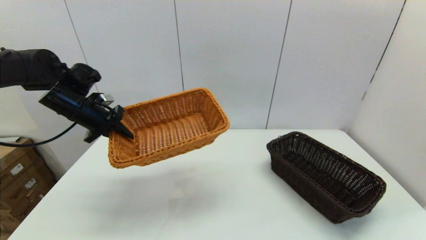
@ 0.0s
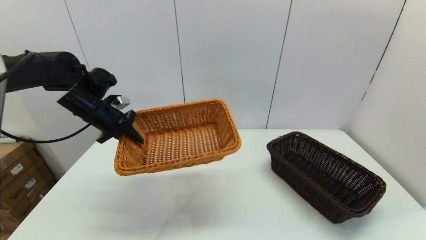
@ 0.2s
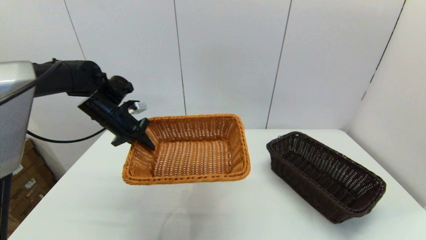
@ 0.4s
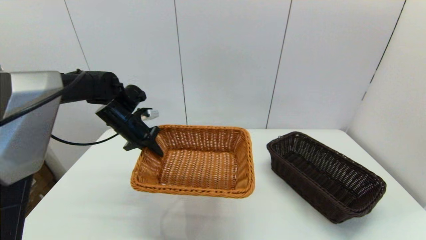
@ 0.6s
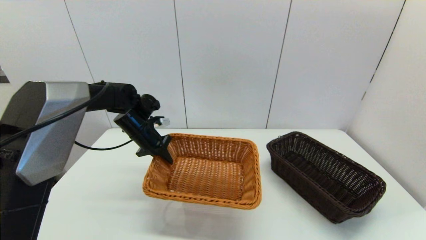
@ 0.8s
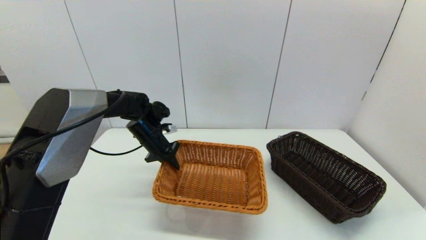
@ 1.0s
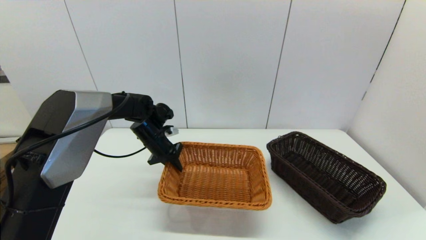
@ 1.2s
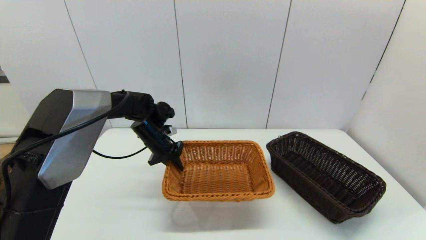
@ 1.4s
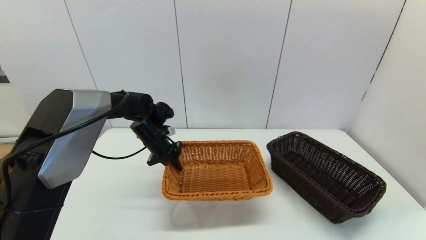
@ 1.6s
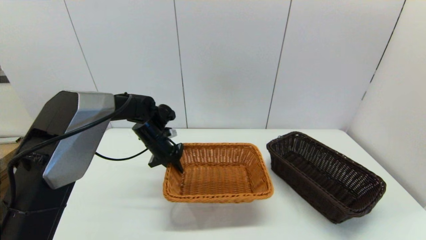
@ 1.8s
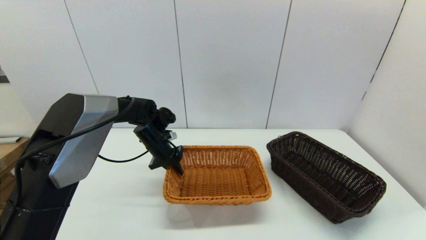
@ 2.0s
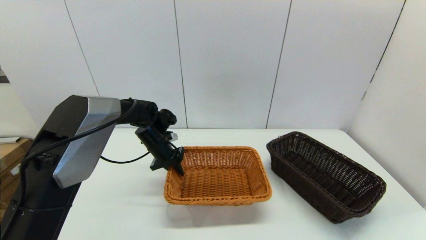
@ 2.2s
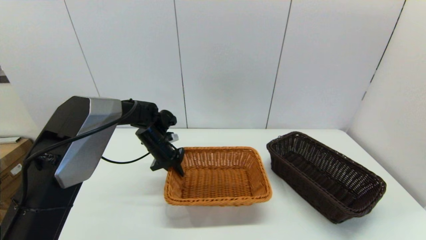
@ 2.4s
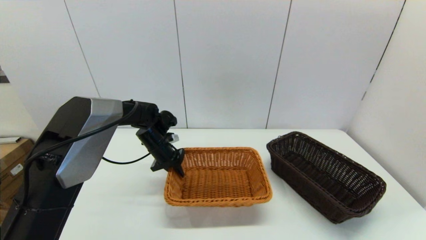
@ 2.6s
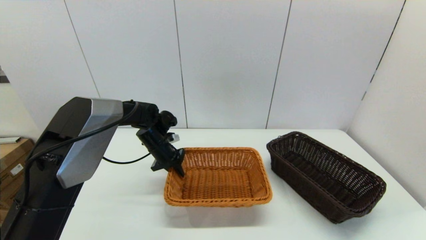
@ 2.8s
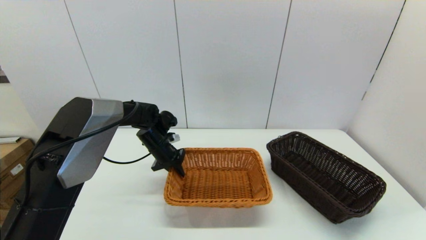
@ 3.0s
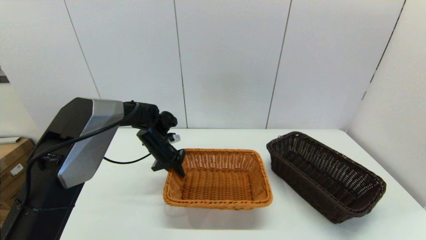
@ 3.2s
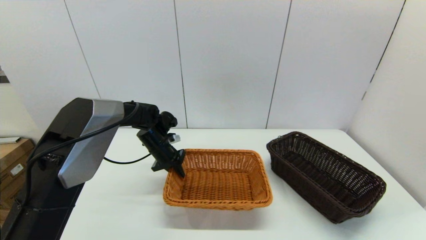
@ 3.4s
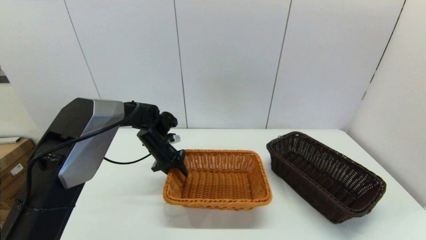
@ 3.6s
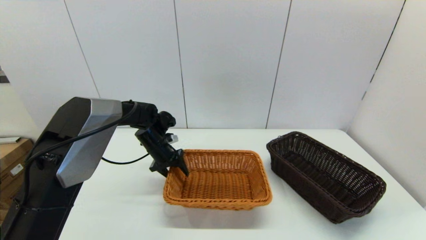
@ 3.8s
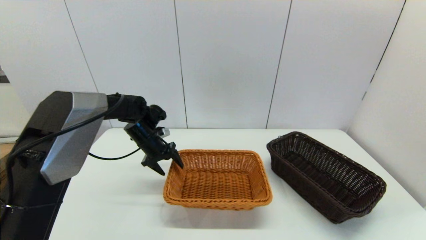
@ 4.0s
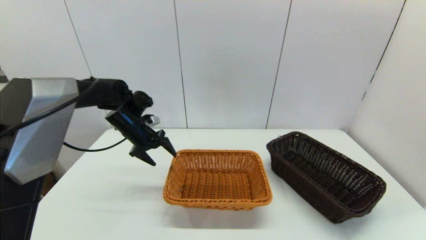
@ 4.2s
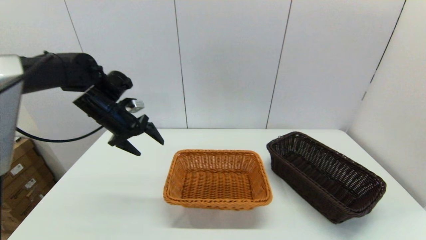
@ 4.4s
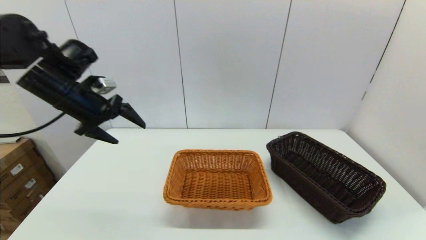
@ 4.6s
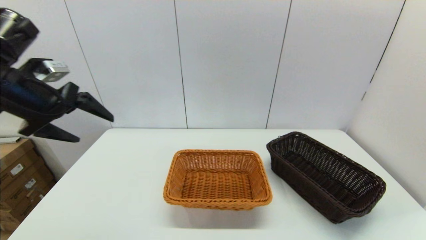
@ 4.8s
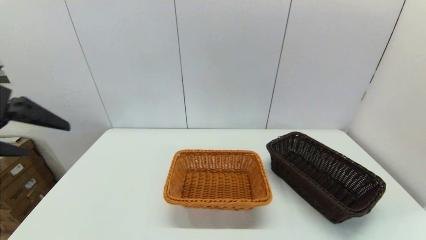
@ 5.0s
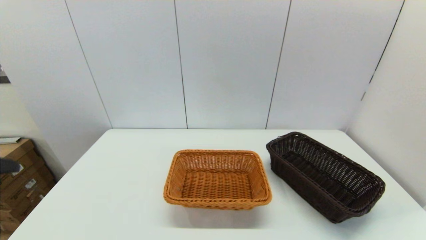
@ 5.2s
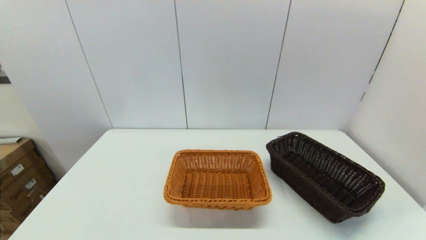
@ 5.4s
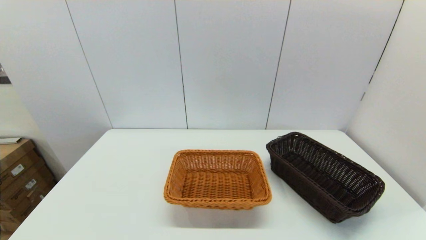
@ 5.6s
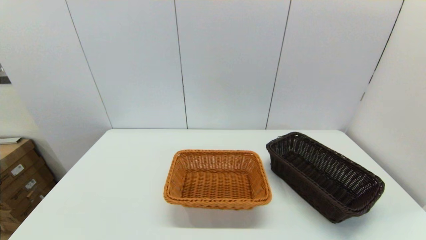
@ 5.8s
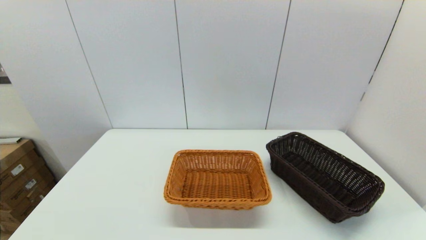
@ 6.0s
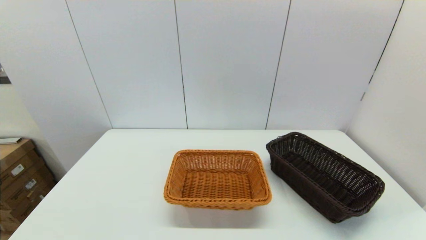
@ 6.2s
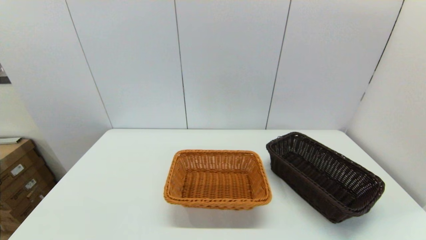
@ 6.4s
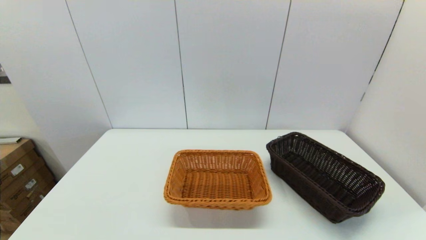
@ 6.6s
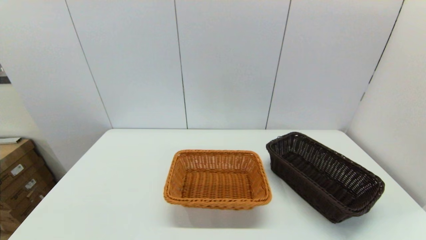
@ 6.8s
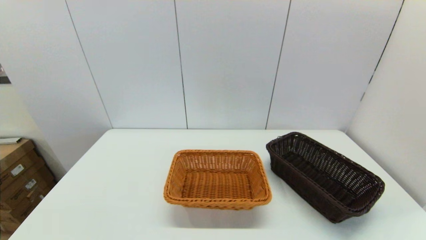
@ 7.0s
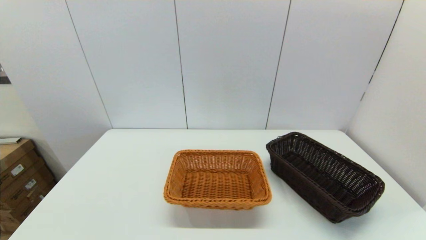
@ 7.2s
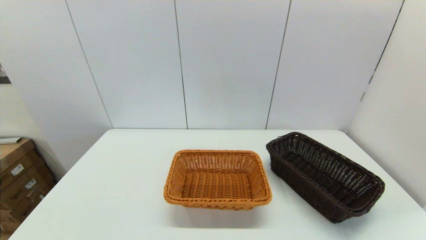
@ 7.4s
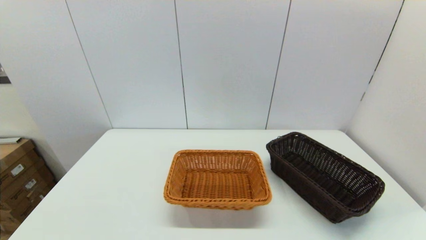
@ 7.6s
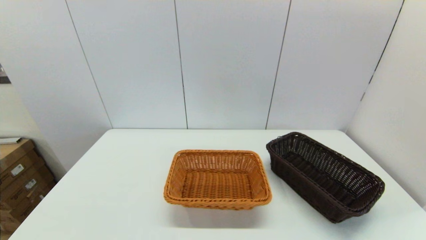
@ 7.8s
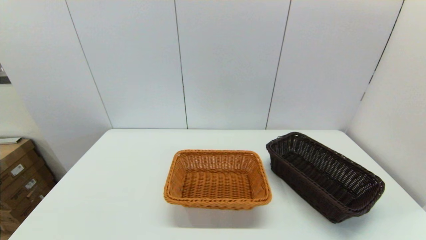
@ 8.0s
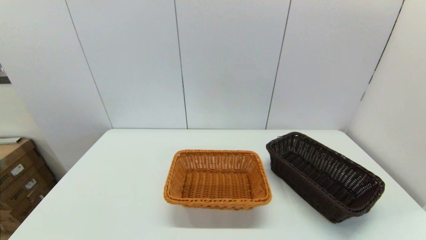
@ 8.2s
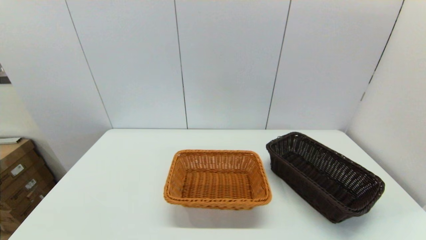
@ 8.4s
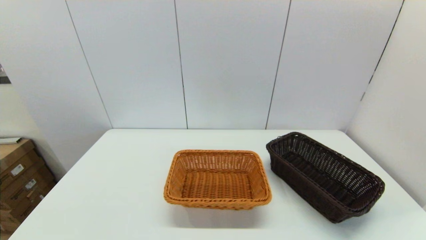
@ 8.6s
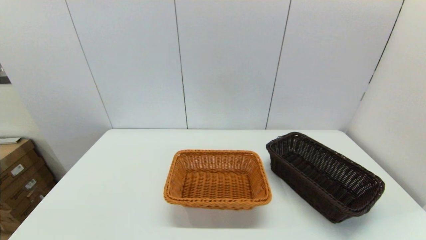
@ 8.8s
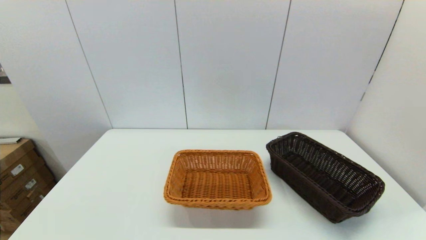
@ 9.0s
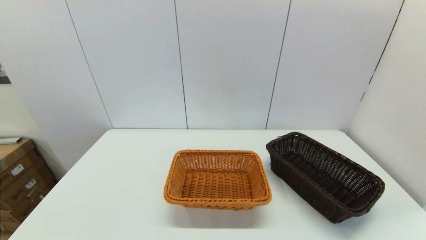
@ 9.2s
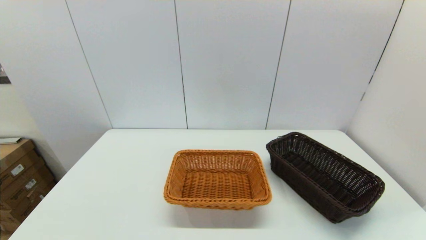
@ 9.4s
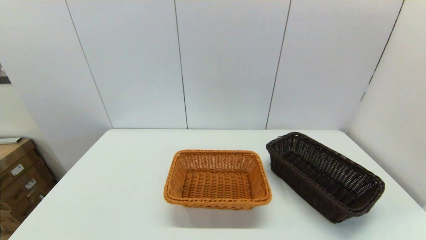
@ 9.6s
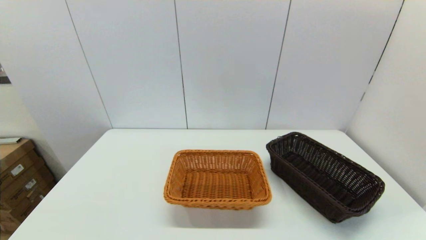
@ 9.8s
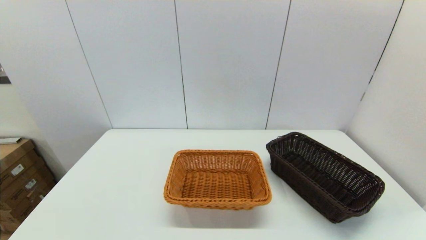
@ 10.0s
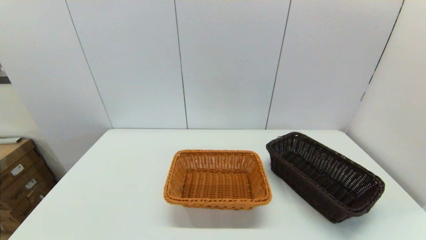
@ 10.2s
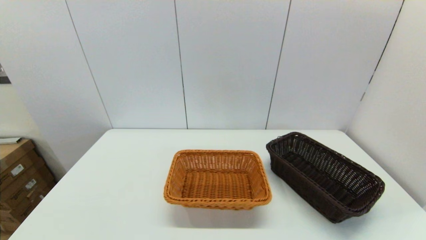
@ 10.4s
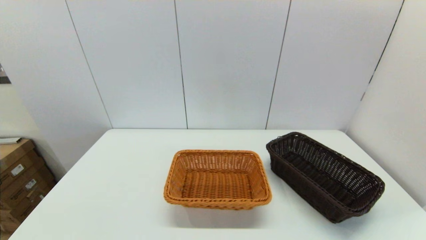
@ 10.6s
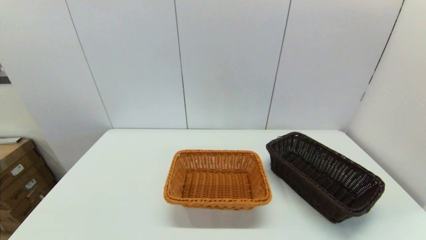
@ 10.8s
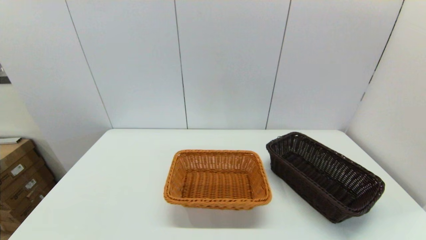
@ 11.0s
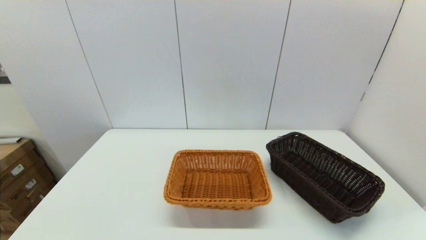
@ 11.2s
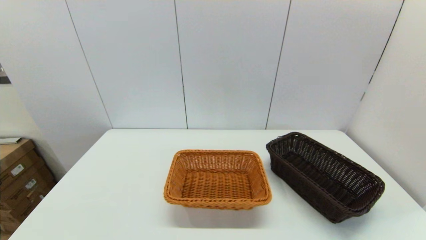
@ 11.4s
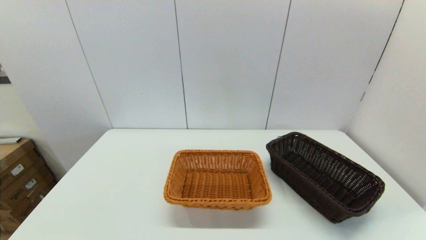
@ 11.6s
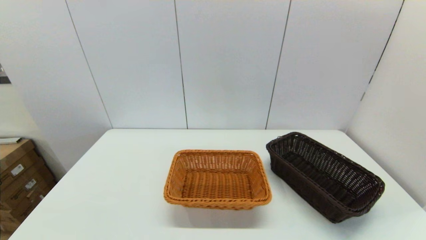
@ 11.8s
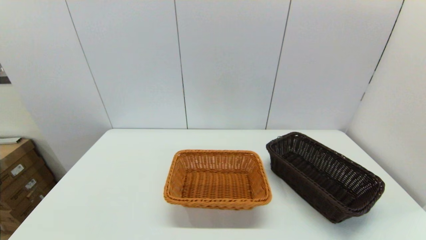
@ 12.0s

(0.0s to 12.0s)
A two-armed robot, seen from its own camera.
Task of the whole recording: stack a basket on top of another basket.
Step, 0.0s - 4.4s: Place the light basket on the middle of the table with the left gripper.
0.0s - 1.6s: The left gripper is displaced to the right and downward by some 20 cm.
1.6s - 3.0s: There are only small adjustments of the grippers.
3.0s - 4.4s: The left gripper goes about 15 cm upward and to the left, and opens up.
4.4s - 6.0s: The left gripper goes about 50 cm backward.
7.6s - 12.0s: Neither gripper changes place.

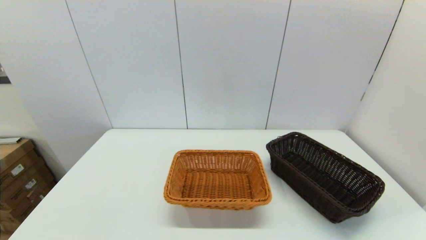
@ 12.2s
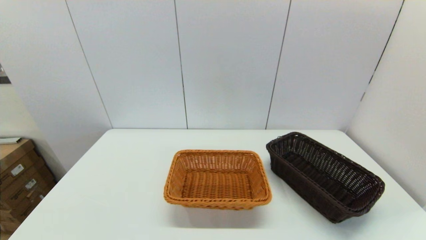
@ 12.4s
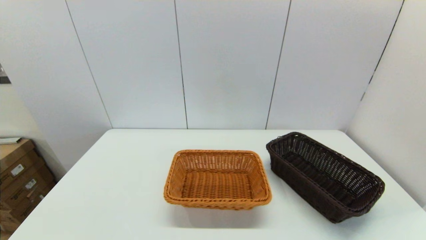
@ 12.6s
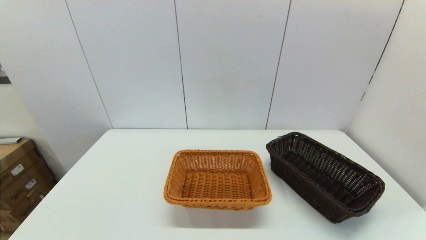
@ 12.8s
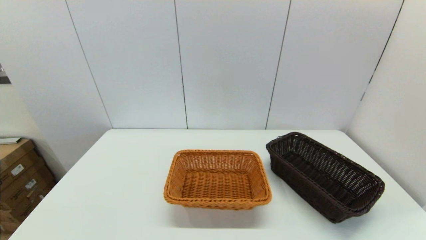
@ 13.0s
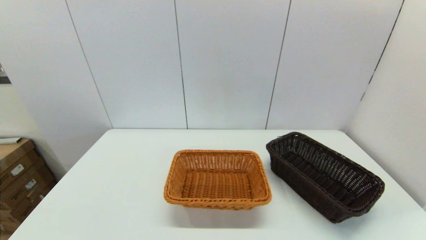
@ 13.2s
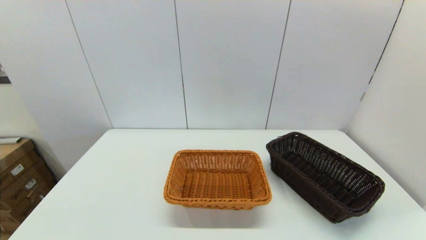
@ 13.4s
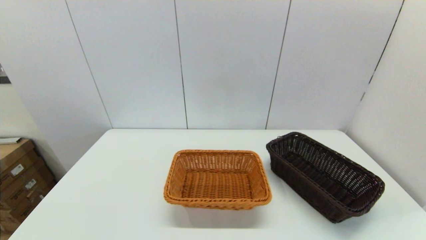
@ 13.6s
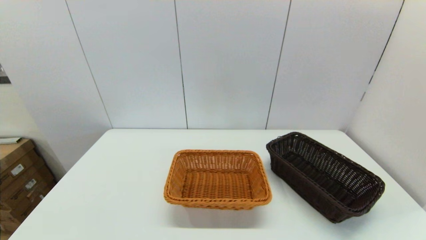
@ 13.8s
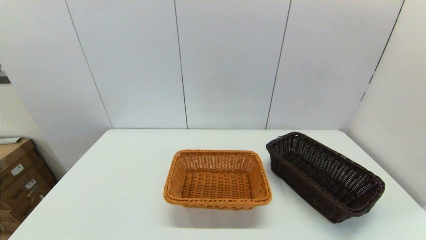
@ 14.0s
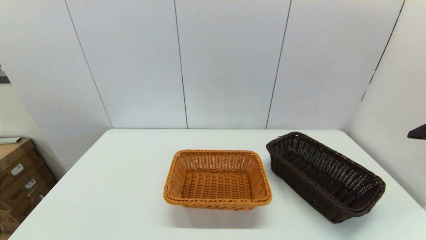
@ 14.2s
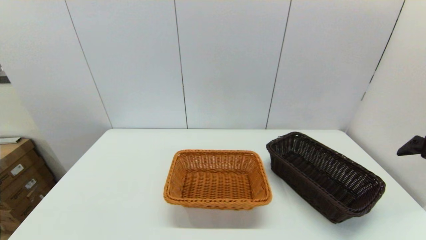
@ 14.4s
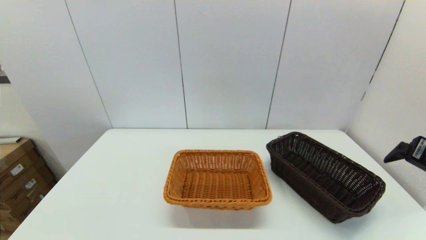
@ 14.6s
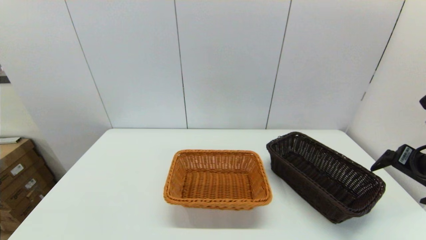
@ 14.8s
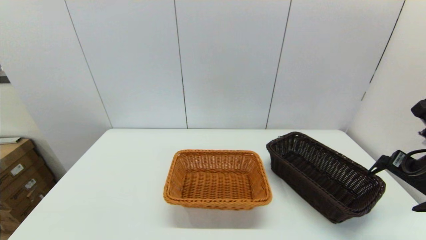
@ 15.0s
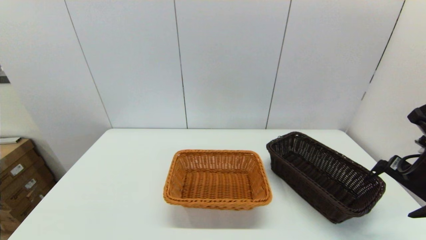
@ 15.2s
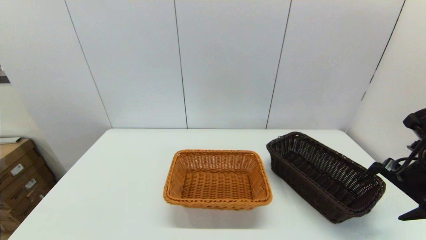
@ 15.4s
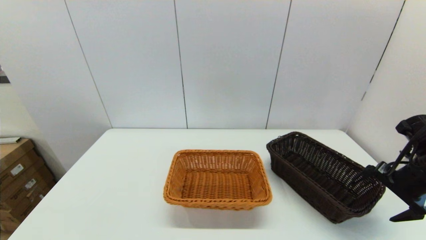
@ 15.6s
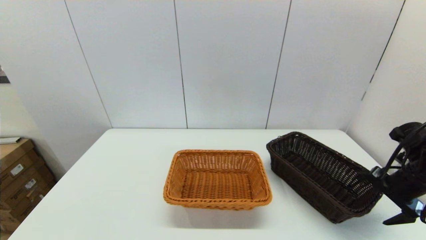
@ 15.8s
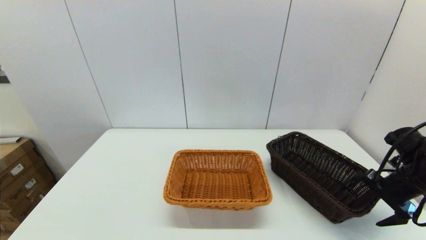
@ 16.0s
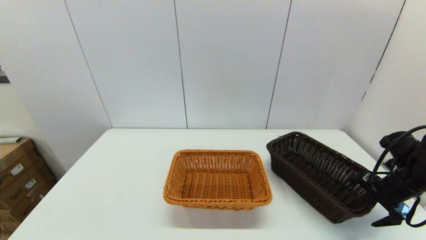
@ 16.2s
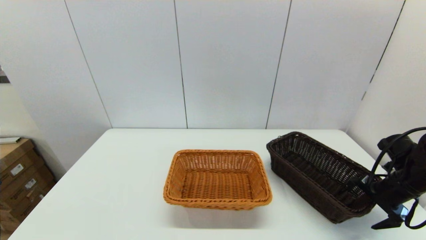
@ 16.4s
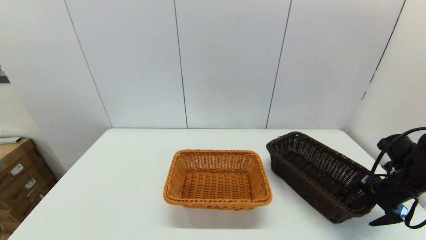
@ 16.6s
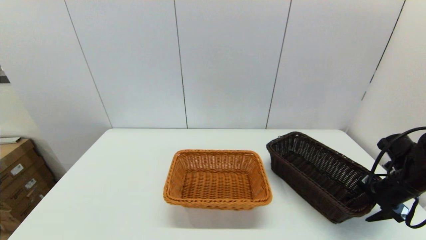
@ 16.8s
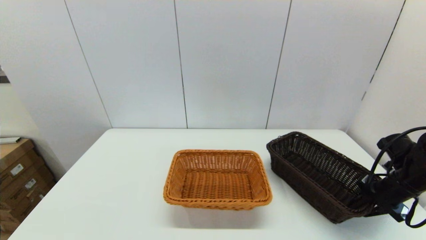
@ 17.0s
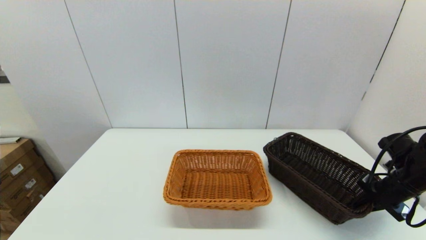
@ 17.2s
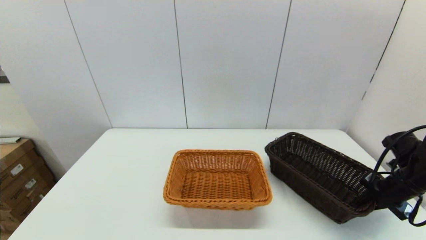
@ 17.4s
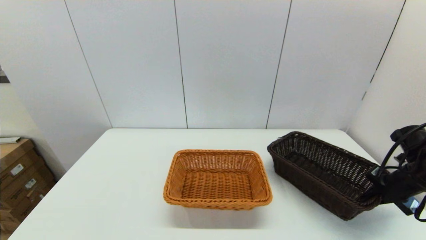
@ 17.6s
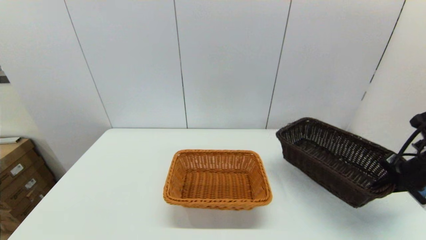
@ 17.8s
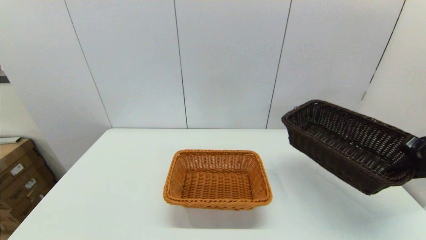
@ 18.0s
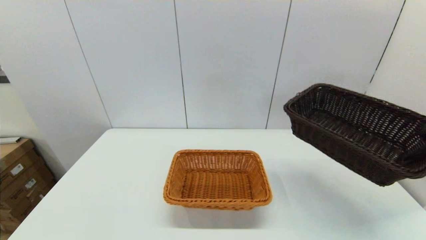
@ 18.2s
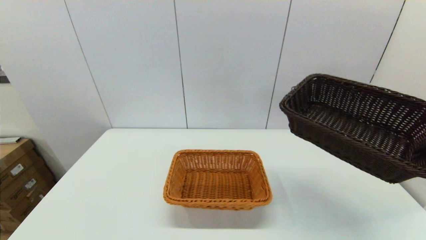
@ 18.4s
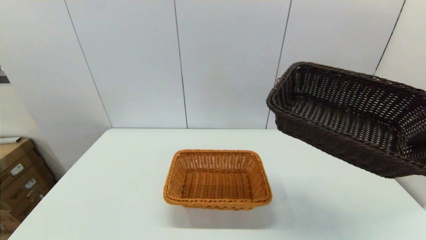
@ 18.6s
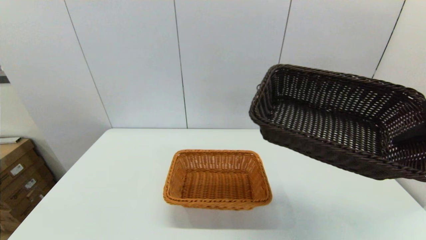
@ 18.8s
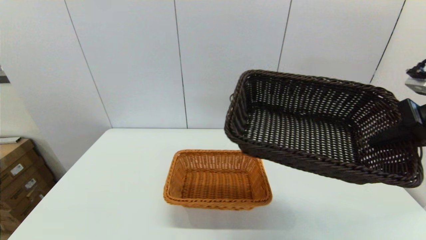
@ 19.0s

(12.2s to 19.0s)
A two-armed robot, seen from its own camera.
Task of the whole recording: stack a basket on top of another basket.
Step, 12.2s - 17.2s: Grasp the dark basket with the right gripper.
13.6s - 15.0s: The right gripper moves forward and downward, some 20 cm.
15.0s - 16.2s: The right gripper moves downward, roughly 10 cm.
16.2s - 17.6s: The right gripper closes.
17.6s - 19.0s: The right gripper goes approximately 20 cm upward and to the left.
